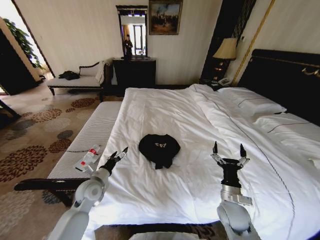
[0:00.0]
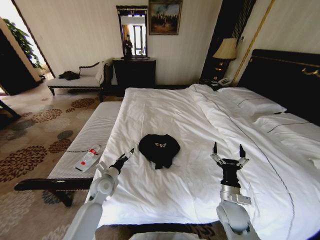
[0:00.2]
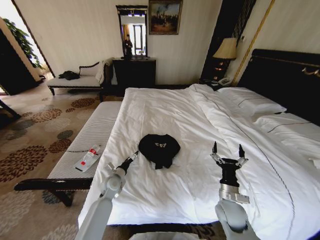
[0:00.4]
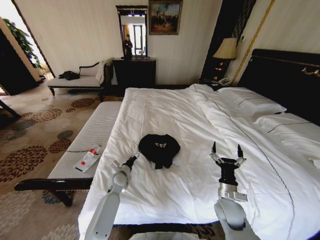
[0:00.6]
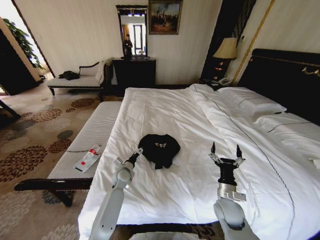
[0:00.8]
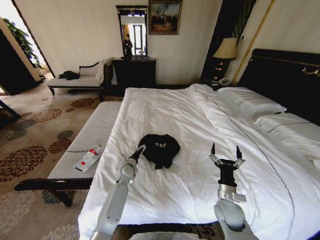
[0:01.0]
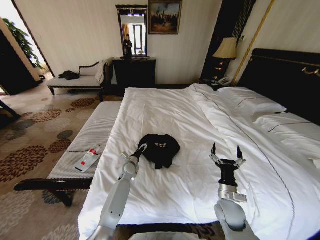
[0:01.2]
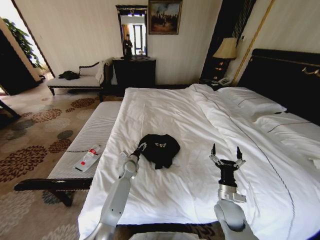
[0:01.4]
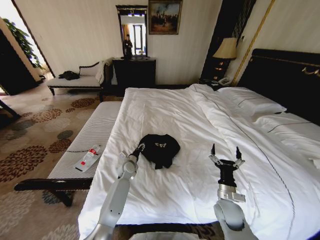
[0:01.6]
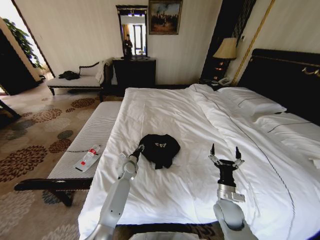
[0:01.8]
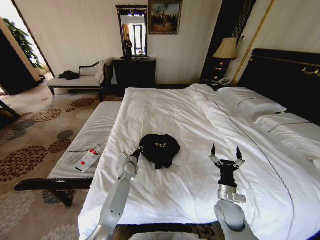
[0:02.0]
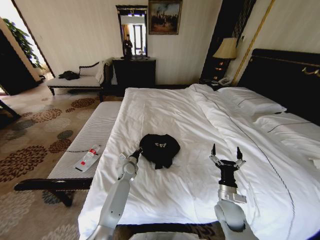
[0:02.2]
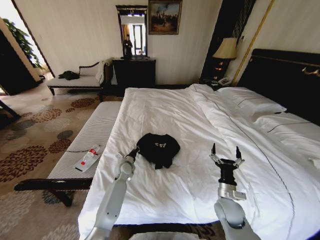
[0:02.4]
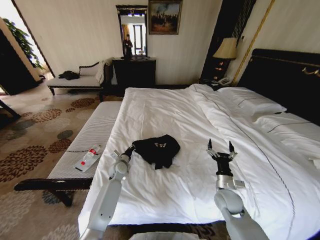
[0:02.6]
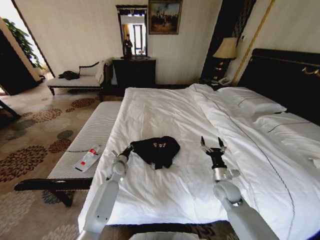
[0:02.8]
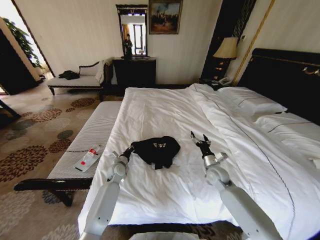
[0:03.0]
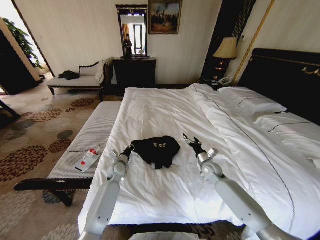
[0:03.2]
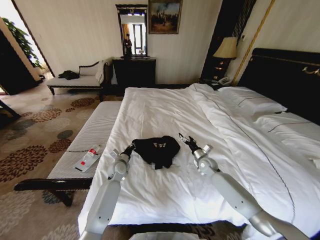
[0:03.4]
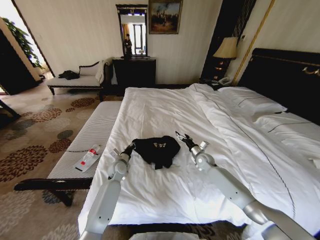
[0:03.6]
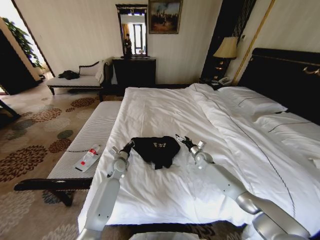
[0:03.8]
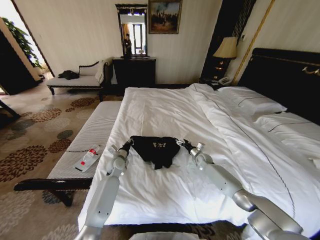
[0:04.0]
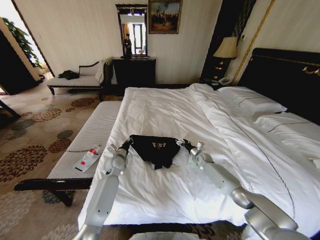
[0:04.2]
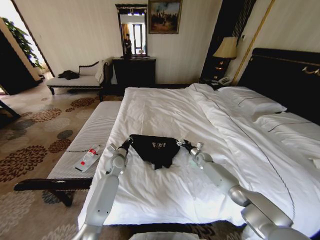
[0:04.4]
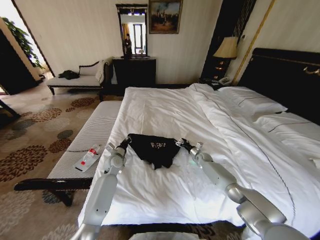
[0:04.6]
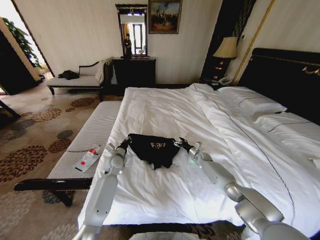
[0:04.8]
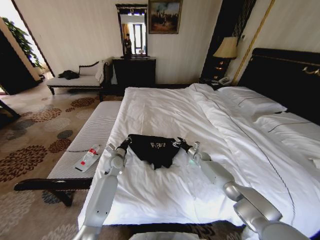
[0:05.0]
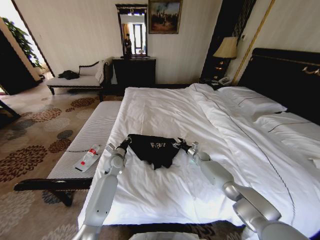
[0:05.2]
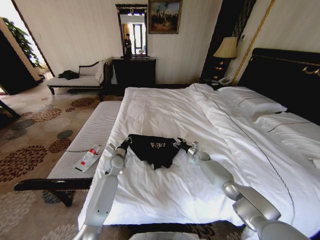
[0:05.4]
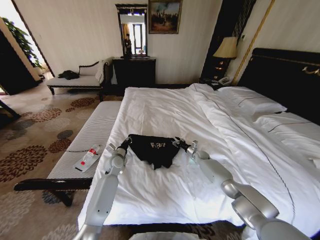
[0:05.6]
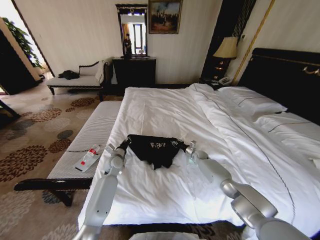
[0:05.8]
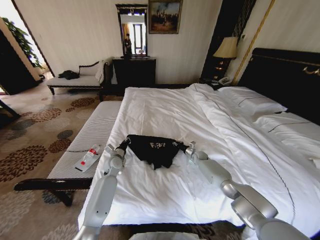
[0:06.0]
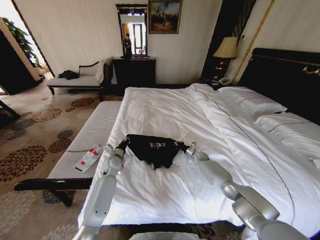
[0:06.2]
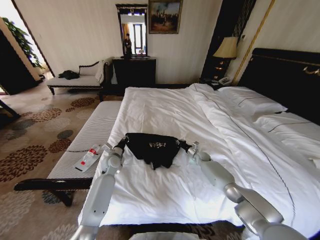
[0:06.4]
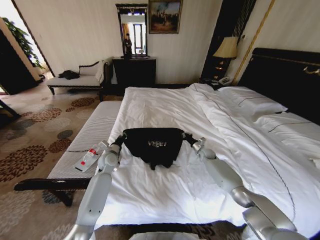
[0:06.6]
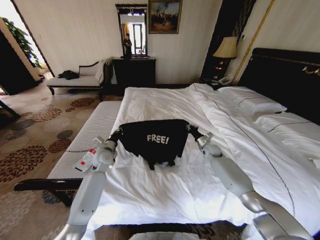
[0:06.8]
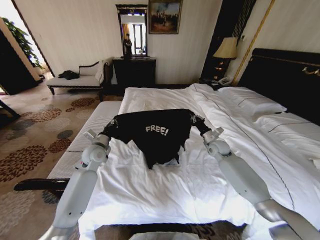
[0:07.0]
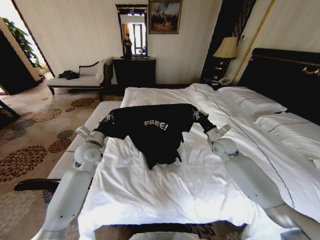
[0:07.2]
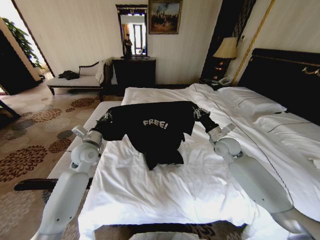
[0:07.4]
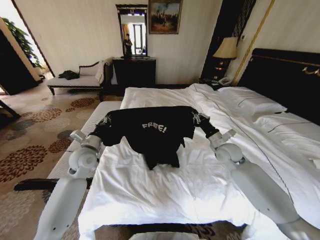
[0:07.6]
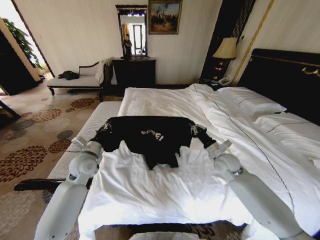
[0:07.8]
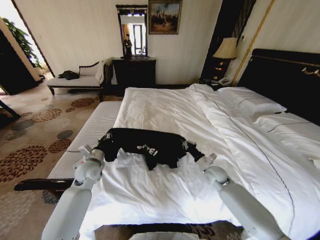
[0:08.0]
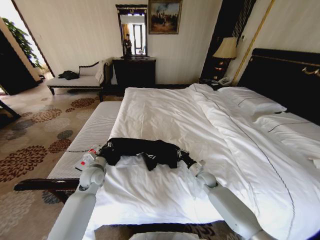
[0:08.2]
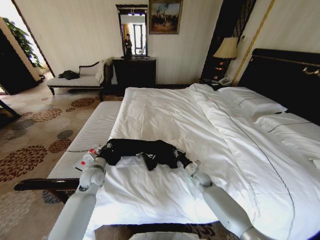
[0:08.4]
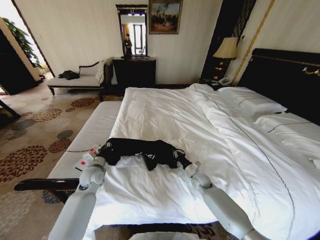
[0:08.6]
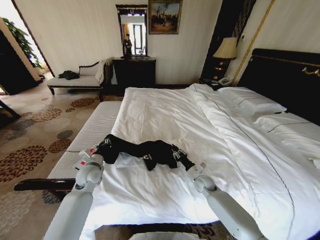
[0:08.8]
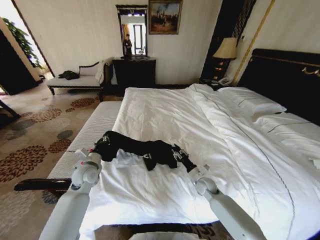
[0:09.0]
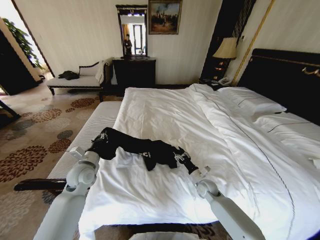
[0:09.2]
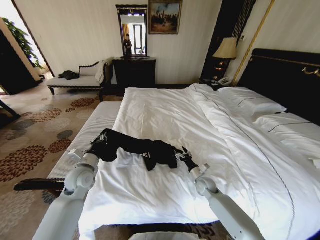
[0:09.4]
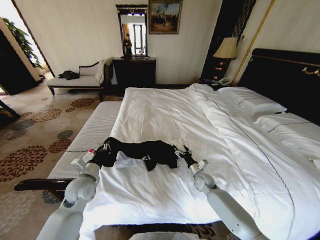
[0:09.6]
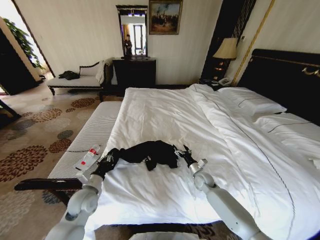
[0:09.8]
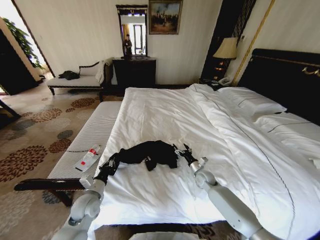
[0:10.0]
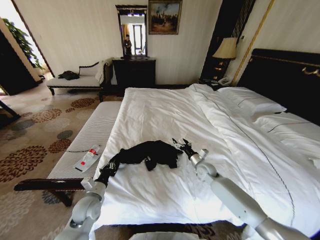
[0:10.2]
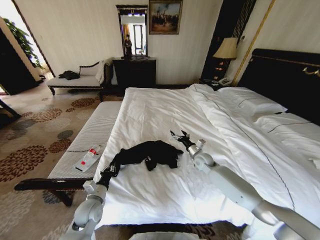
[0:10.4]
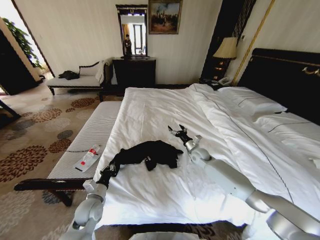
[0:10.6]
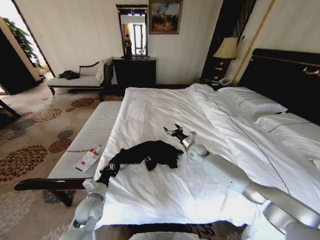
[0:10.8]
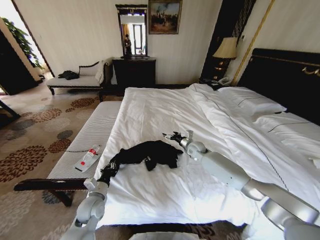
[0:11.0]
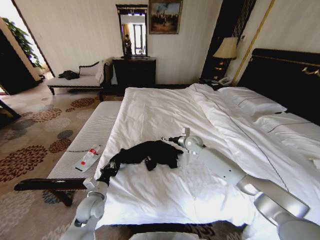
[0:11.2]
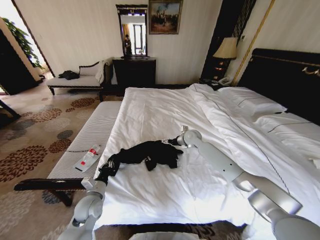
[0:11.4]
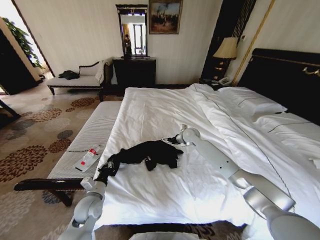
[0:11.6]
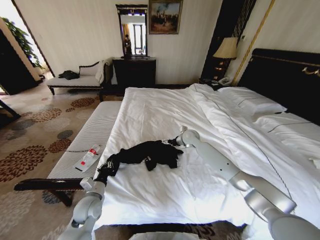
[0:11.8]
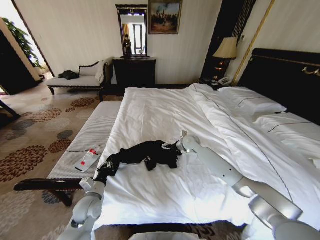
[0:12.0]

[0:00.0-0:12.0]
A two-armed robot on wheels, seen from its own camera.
Task of the whole recording: Fold the clothes on the bed.
0.0 to 1.6 s: The left gripper heads forward, to the right and downward, covering some 20 cm, and closes up.
1.6 to 3.0 s: The left gripper changes place by some 5 cm, and closes, while the right gripper moves forward, about 15 cm.
3.0 to 4.4 s: The right gripper moves forward and downward, approximately 20 cm.
4.4 to 6.0 s: The right gripper closes.
6.0 to 7.6 s: The left gripper shifts about 15 cm upward, to the left and backward, while the right gripper heads upward and backward, covering about 25 cm.
7.6 to 9.0 s: The left gripper heads downward, covering roughly 10 cm. Meanwhile the right gripper heads downward, covering approximately 20 cm, and opens.
9.0 to 10.4 s: The left gripper heads backward and downward, covering roughly 15 cm. Meanwhile the right gripper is displaced forward and upward by approximately 15 cm, and opens its fingers.
10.4 to 12.0 s: The right gripper shifts some 10 cm forward, upward and to the left.

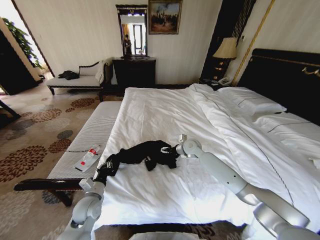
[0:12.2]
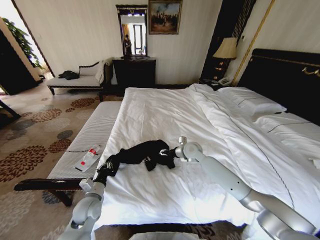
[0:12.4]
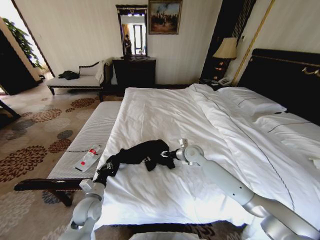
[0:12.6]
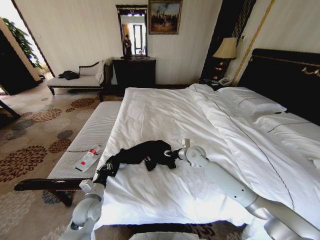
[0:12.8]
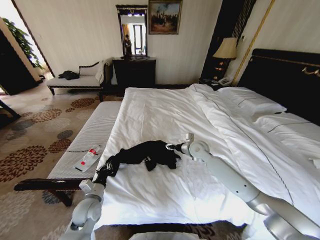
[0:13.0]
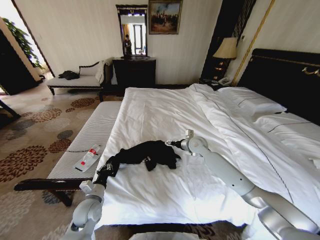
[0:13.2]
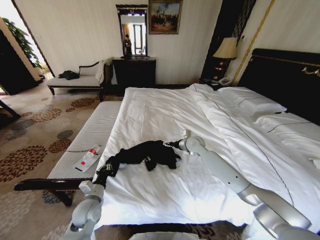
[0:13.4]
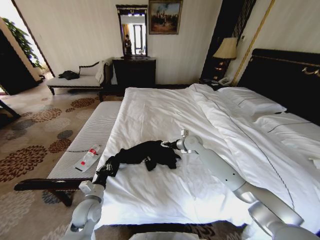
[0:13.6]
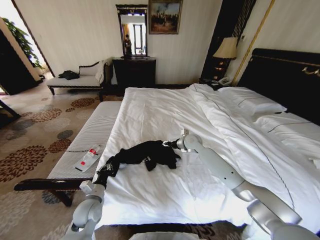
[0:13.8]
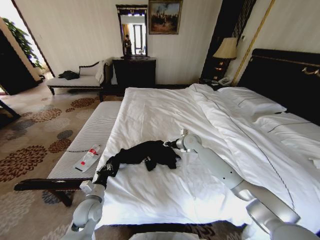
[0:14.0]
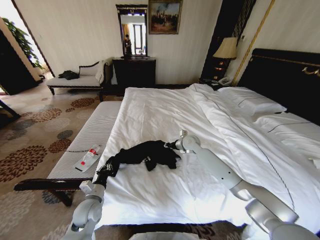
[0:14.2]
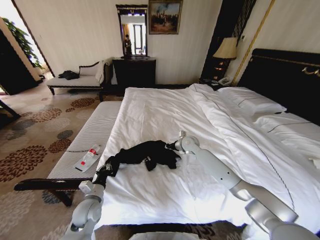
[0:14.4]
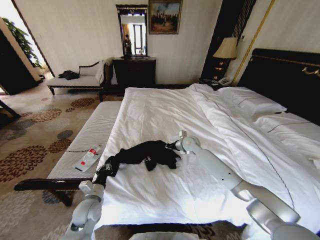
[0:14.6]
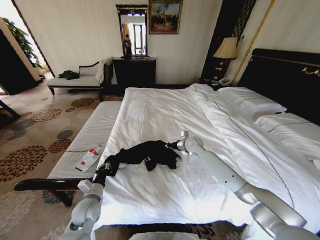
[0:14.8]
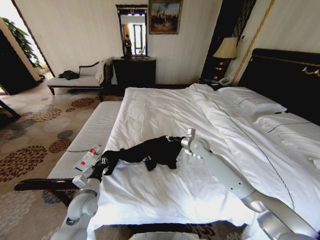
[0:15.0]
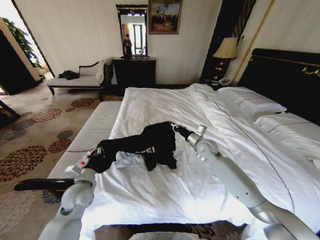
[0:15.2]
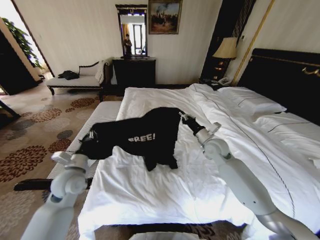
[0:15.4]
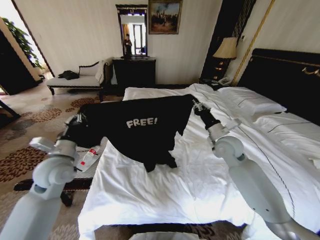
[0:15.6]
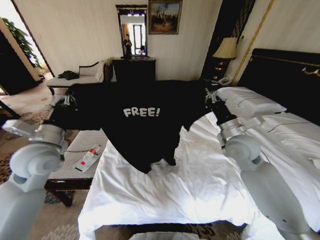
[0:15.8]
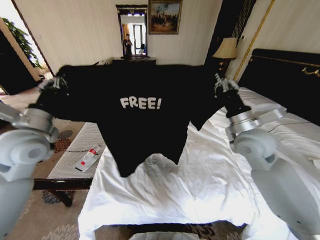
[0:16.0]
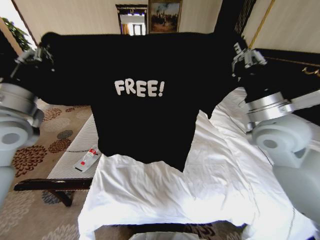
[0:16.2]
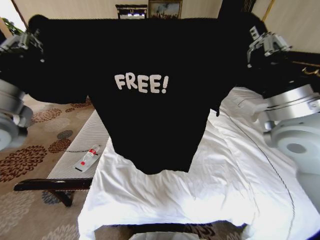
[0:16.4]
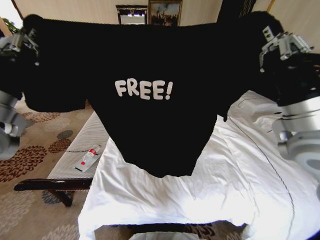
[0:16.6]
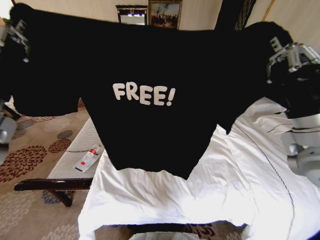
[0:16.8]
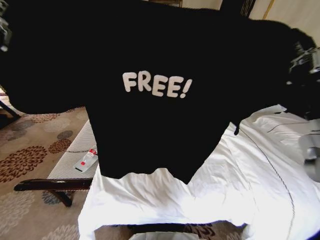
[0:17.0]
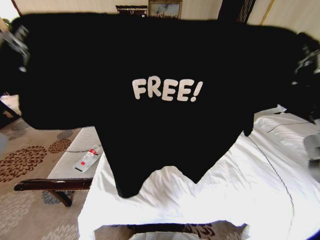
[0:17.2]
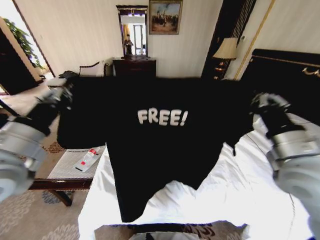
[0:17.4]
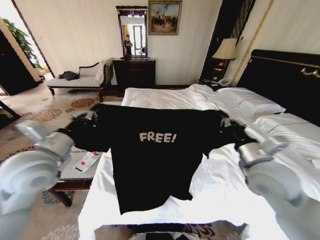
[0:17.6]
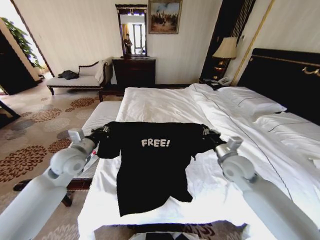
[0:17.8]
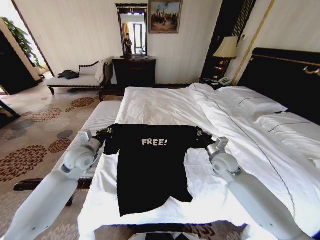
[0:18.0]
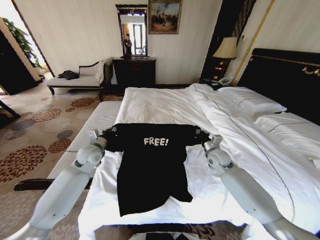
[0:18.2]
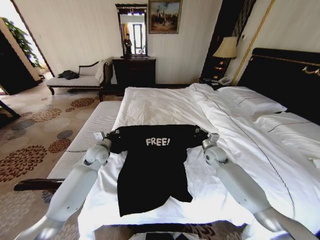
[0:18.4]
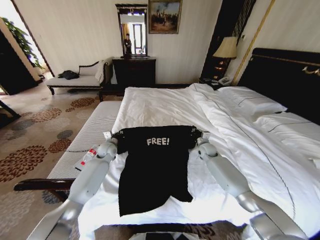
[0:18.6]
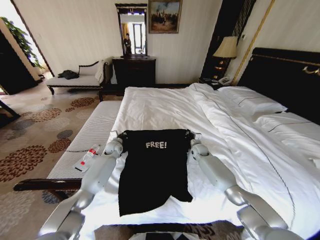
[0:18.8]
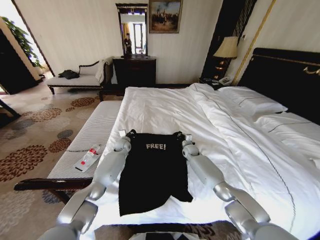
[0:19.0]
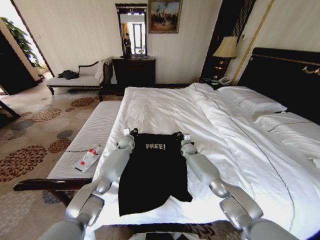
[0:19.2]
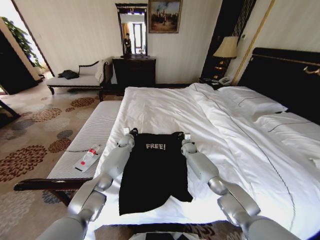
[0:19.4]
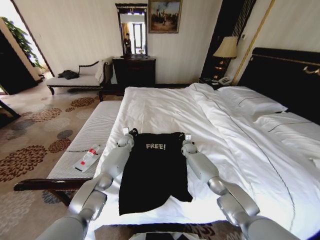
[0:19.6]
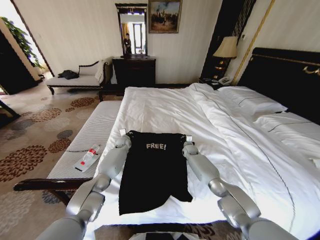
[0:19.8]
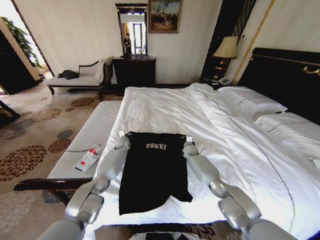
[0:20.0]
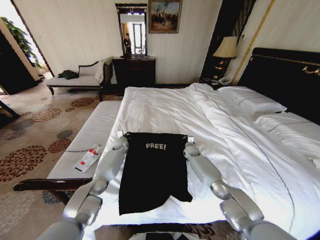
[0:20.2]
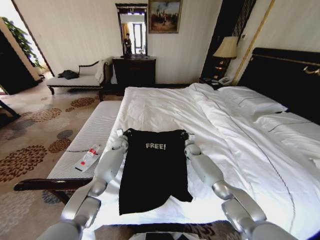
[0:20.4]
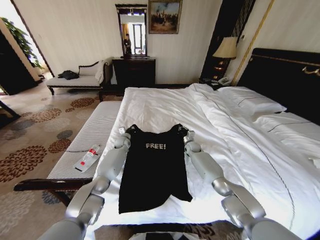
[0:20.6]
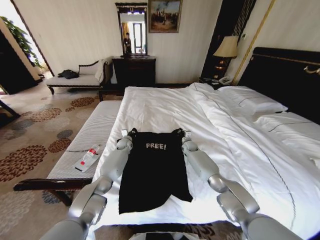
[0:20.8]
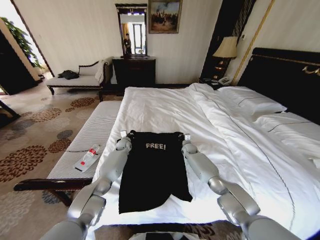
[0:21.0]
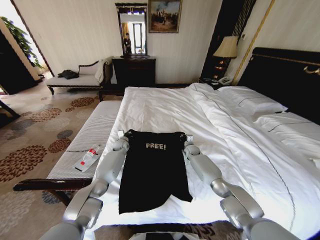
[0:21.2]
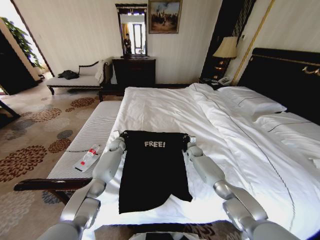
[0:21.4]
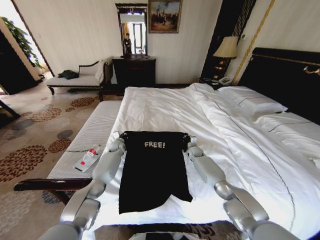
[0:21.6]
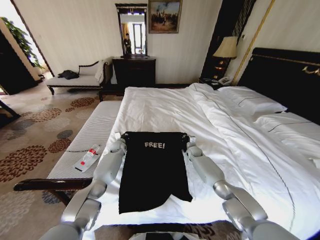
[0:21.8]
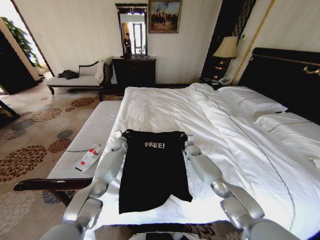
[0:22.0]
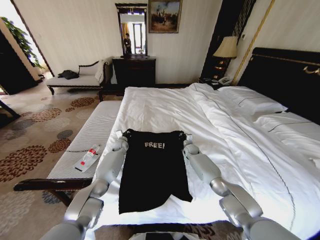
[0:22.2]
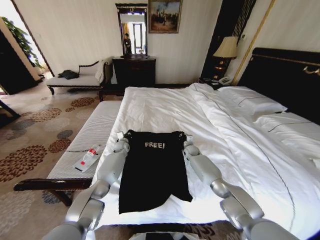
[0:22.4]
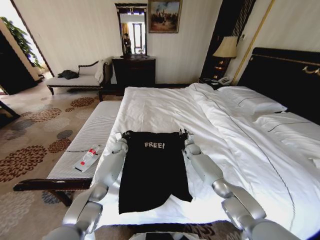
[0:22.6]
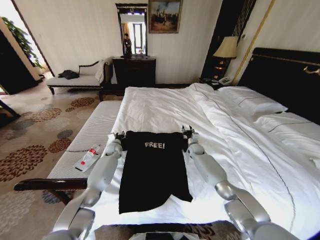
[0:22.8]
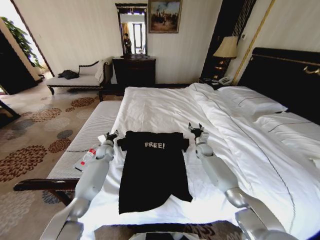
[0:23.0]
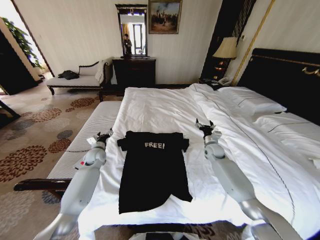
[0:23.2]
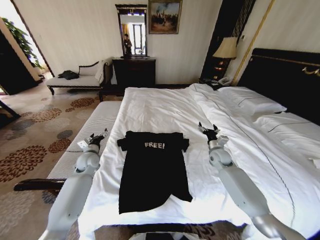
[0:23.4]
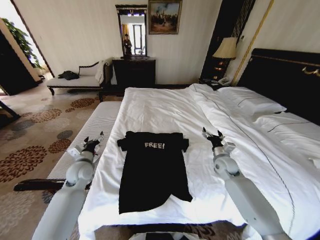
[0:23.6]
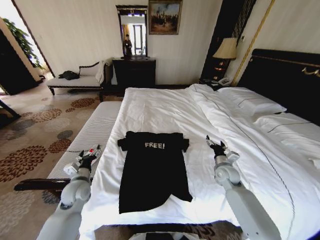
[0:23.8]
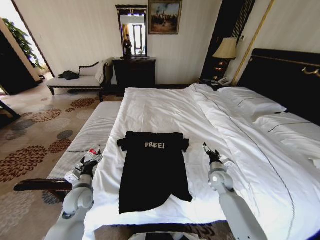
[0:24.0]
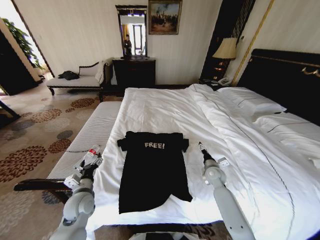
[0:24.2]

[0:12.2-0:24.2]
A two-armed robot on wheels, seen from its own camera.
Task of the whole recording: Fold the clothes on the bed.
12.2 to 13.8 s: The grippers move only a little.
13.8 to 15.2 s: The right gripper travels backward by approximately 5 cm, and closes up; the left gripper moves upward, about 5 cm.
15.2 to 16.6 s: The left gripper moves upward, about 35 cm, while the right gripper goes about 35 cm upward and backward.
16.6 to 18.2 s: Both grippers travel together downward and forward, about 30 cm.
18.2 to 19.8 s: The right gripper heads forward and downward, covering roughly 20 cm. Meanwhile the left gripper goes approximately 25 cm forward, downward and to the right.
21.2 to 22.6 s: The grippers move only a little.
22.6 to 24.2 s: The left gripper travels backward by some 35 cm, and opens its fingers, while the right gripper heads backward, covering some 20 cm, and opens.
